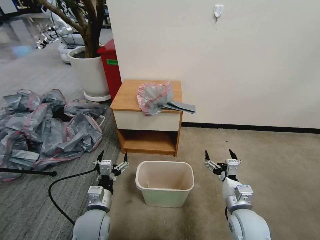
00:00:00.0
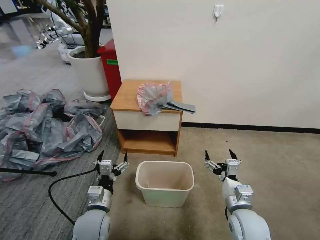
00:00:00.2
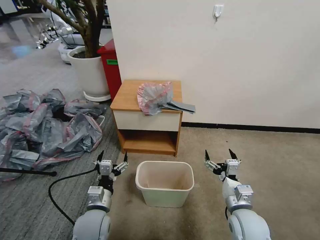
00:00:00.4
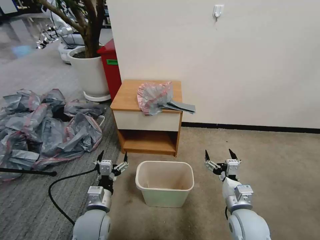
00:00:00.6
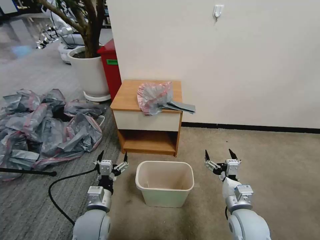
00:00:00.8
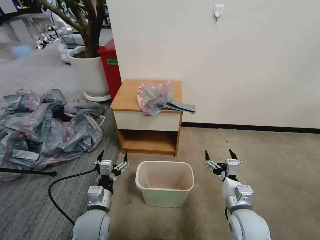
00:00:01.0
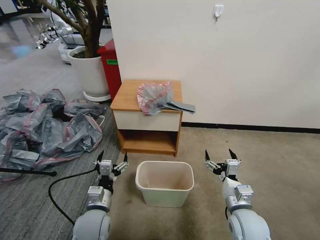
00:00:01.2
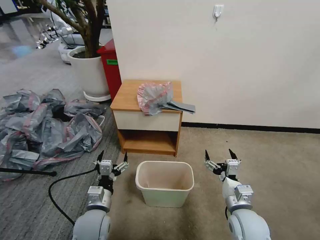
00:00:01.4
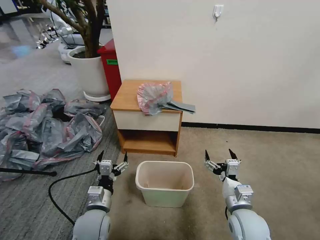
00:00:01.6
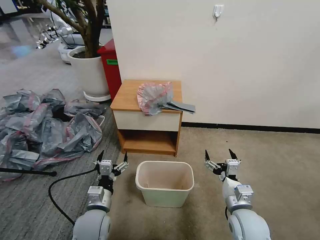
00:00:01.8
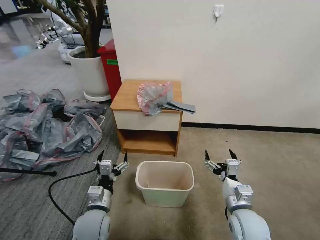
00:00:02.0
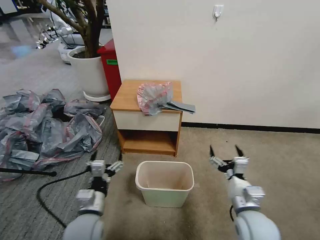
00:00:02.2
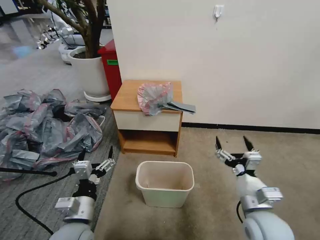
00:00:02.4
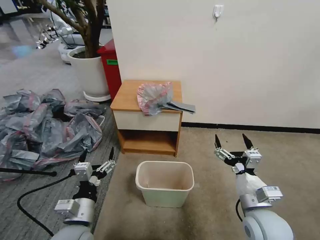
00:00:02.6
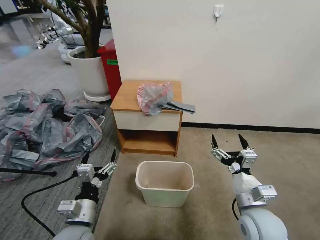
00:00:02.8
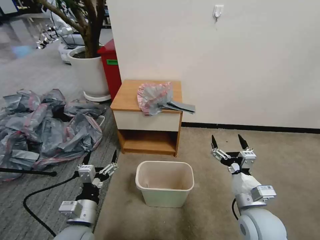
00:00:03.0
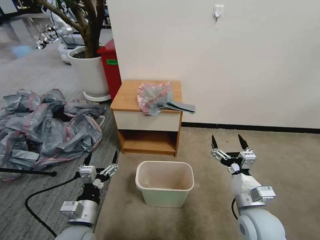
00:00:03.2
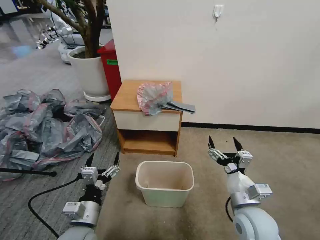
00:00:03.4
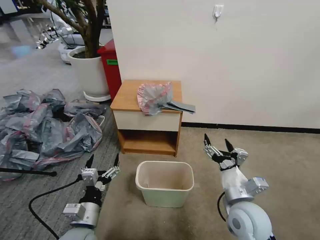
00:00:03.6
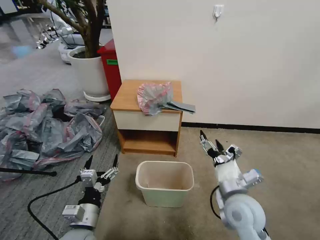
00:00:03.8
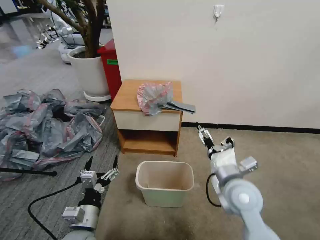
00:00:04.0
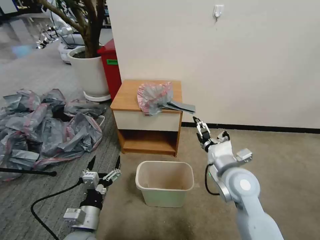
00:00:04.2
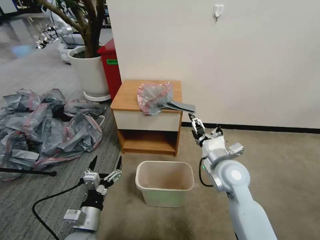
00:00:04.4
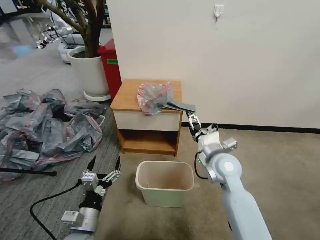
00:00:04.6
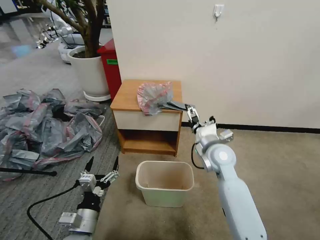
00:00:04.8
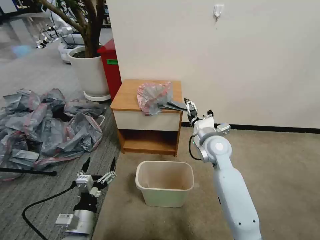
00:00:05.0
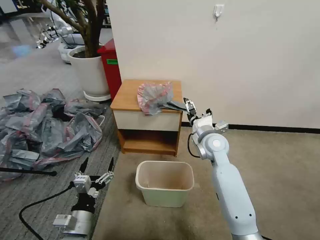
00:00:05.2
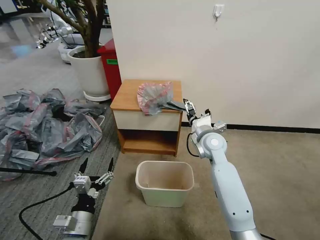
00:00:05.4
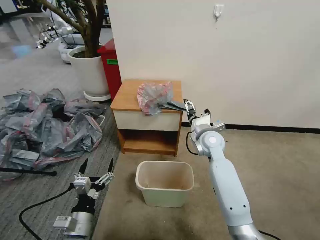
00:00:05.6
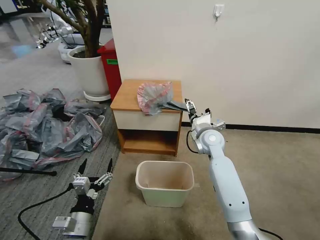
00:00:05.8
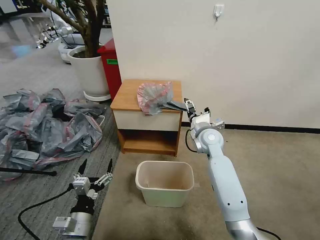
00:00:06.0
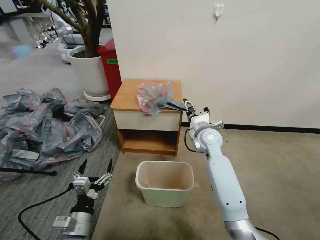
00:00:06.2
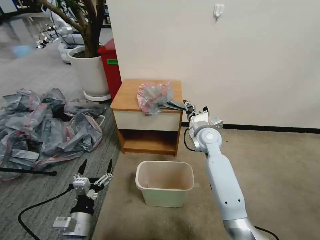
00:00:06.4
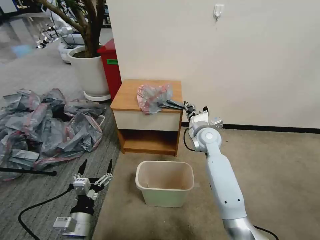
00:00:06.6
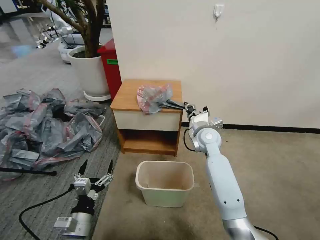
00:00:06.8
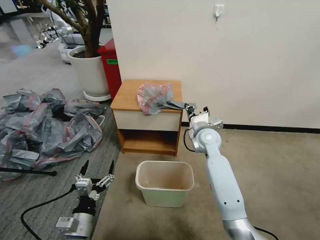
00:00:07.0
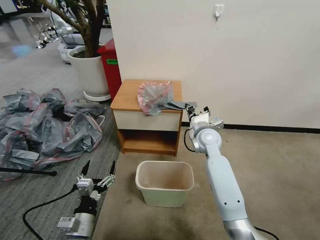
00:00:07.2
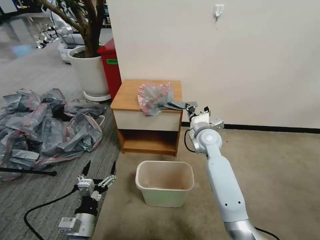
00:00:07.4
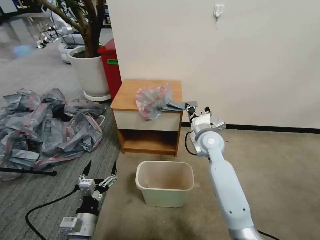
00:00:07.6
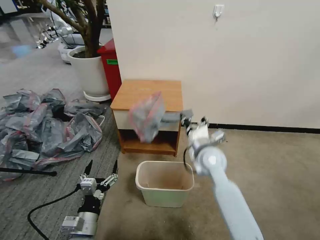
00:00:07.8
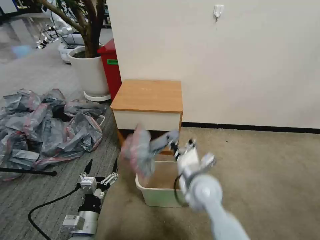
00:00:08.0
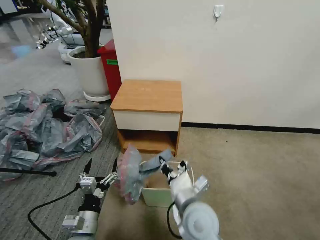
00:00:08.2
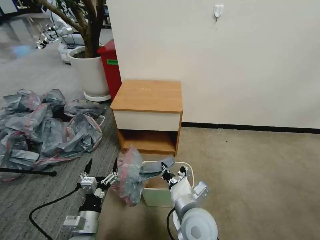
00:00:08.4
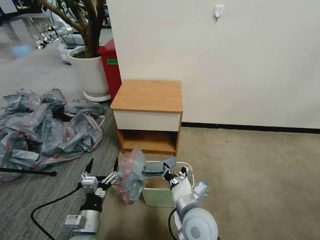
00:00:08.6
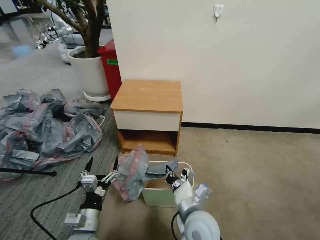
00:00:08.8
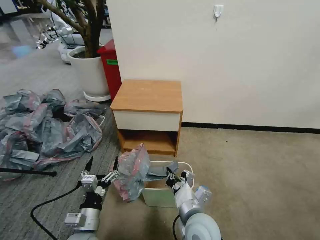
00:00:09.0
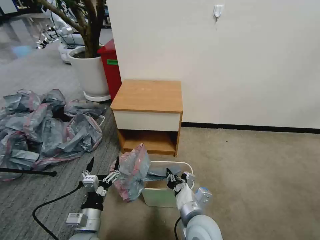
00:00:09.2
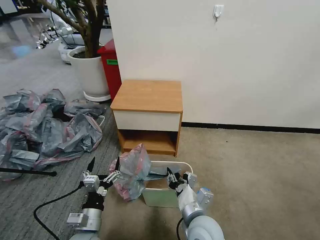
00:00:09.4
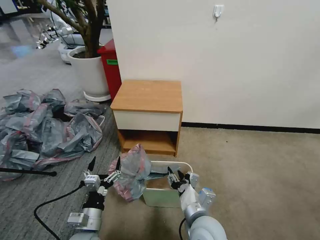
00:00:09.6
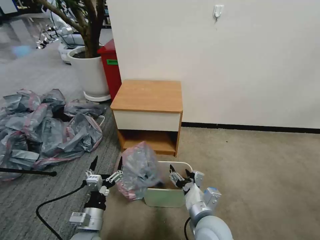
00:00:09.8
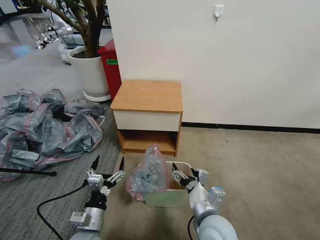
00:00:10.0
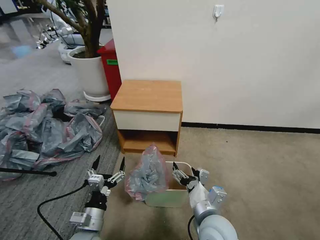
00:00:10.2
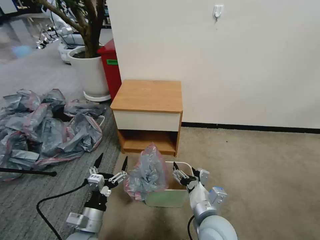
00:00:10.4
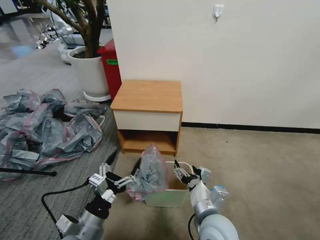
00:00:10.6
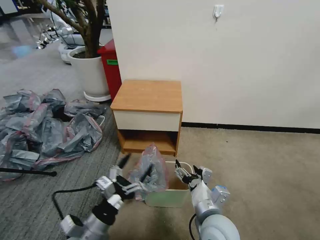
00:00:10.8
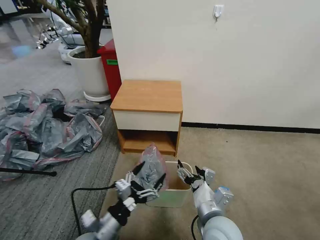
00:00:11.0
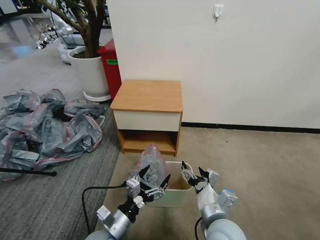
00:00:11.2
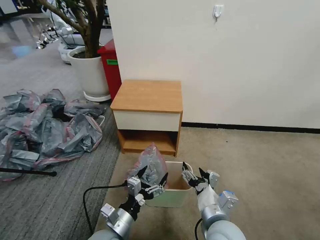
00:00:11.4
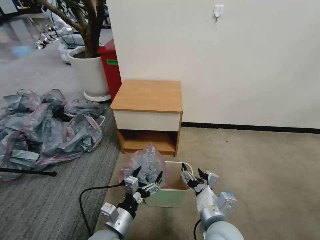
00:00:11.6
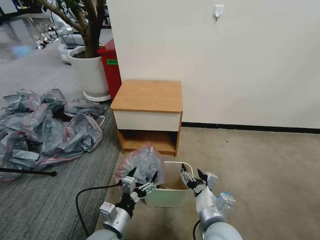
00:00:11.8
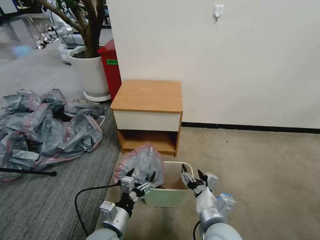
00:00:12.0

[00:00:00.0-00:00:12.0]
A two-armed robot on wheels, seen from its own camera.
Task of the whole recording: Pick up the garbage bag from the table and place it over the trash can.
00:00:01.6 to 00:00:03.0: The left gripper shifts by some 5 cm; the right gripper travels upward by some 5 cm.
00:00:03.0 to 00:00:04.4: The right gripper shifts approximately 15 cm forward and to the left.
00:00:04.4 to 00:00:06.0: The right gripper shifts about 15 cm forward.
00:00:06.0 to 00:00:07.6: The right gripper closes.
00:00:07.6 to 00:00:09.0: The right gripper is displaced backward by some 25 cm.
00:00:09.0 to 00:00:10.4: The right gripper opens.
00:00:10.4 to 00:00:12.0: The left gripper travels to the right by some 5 cm.

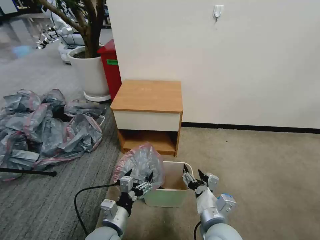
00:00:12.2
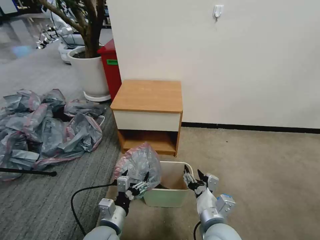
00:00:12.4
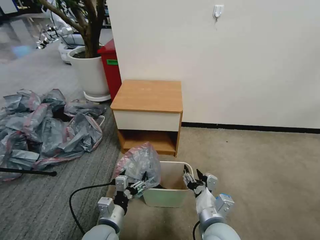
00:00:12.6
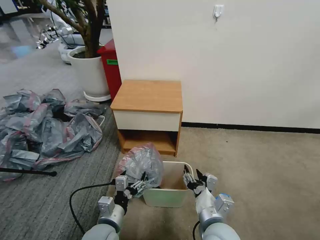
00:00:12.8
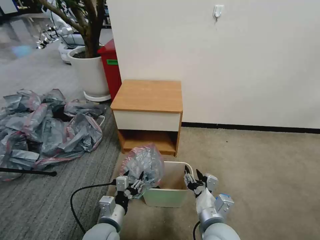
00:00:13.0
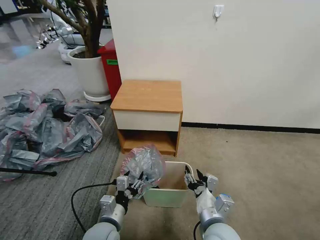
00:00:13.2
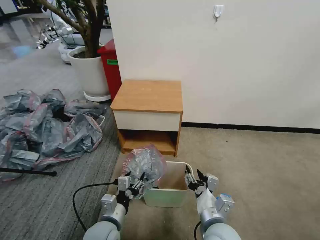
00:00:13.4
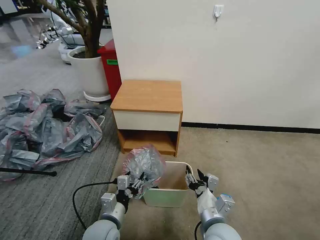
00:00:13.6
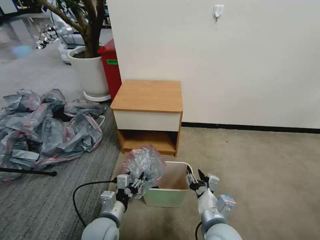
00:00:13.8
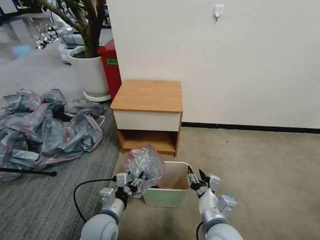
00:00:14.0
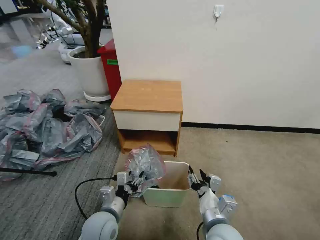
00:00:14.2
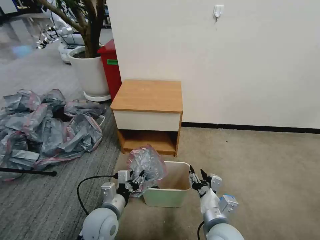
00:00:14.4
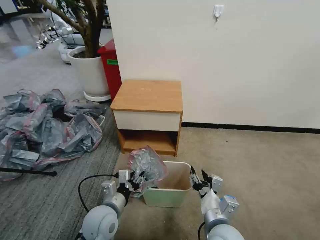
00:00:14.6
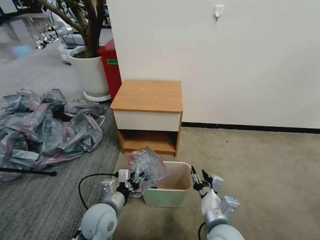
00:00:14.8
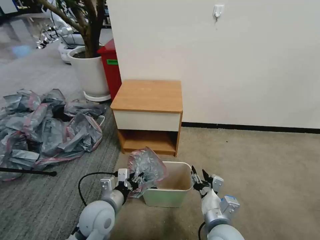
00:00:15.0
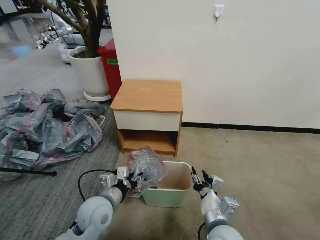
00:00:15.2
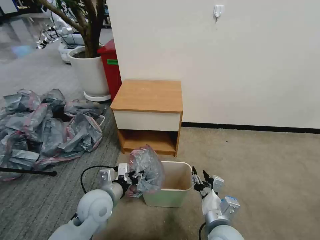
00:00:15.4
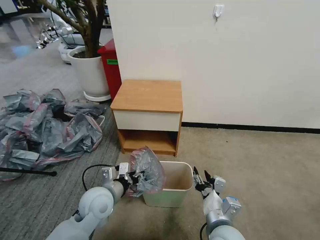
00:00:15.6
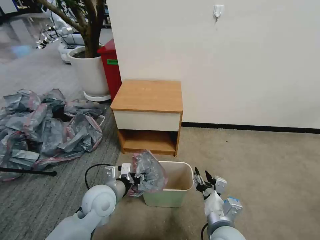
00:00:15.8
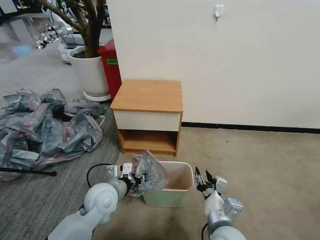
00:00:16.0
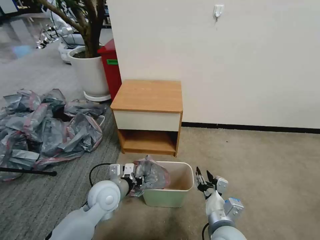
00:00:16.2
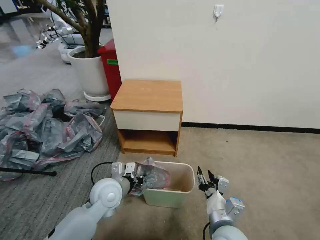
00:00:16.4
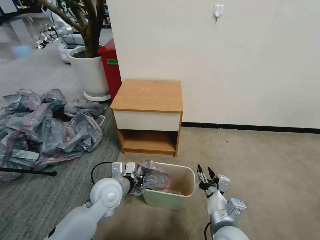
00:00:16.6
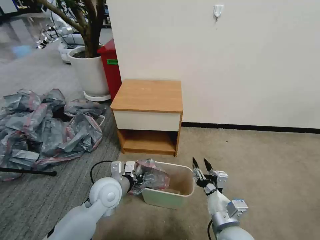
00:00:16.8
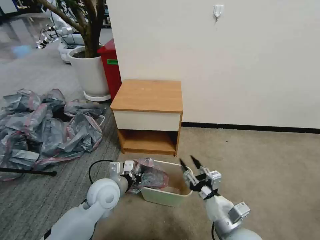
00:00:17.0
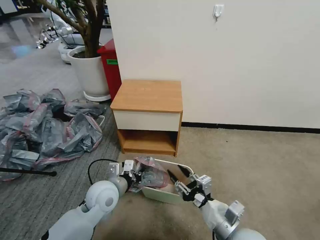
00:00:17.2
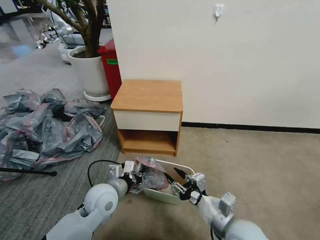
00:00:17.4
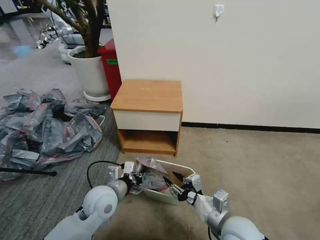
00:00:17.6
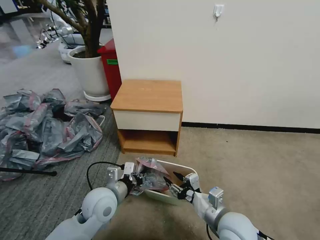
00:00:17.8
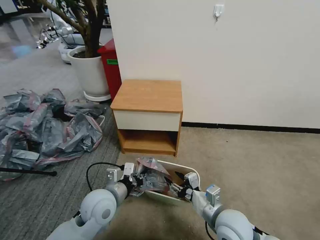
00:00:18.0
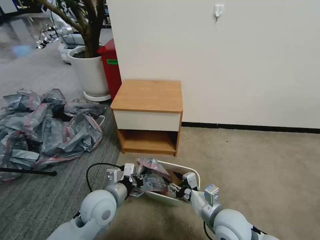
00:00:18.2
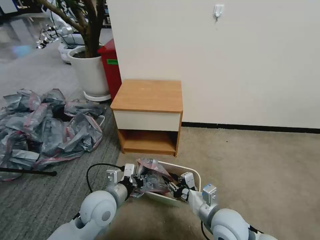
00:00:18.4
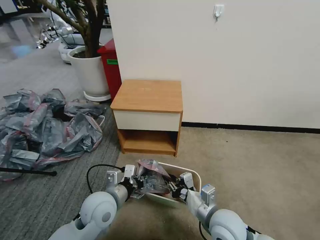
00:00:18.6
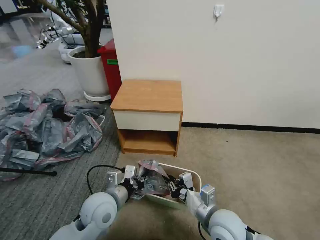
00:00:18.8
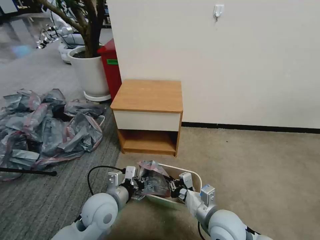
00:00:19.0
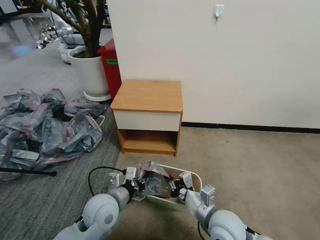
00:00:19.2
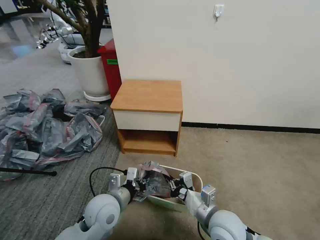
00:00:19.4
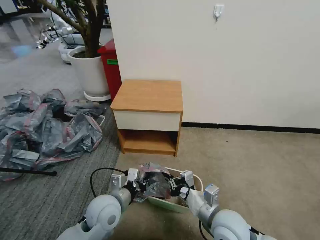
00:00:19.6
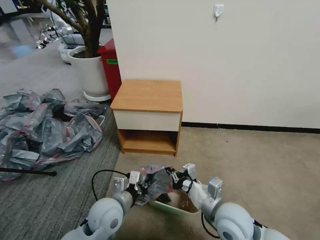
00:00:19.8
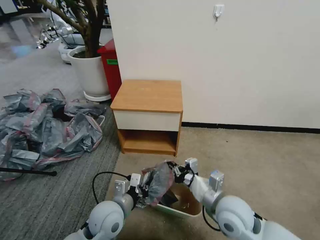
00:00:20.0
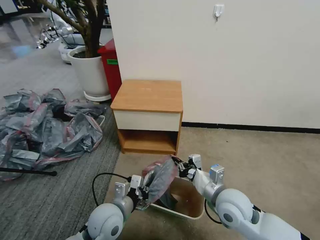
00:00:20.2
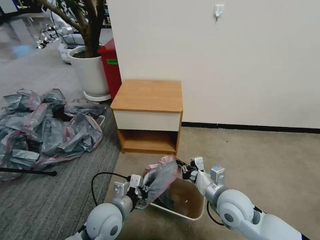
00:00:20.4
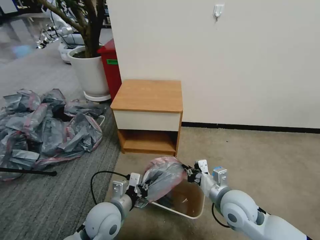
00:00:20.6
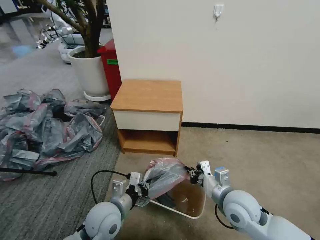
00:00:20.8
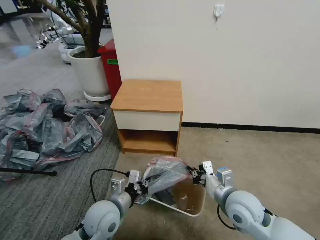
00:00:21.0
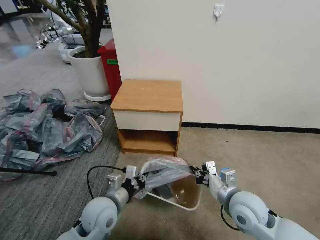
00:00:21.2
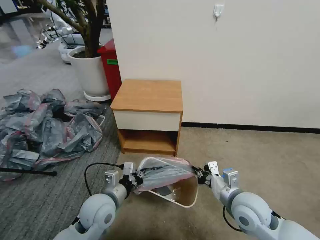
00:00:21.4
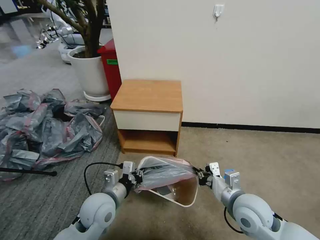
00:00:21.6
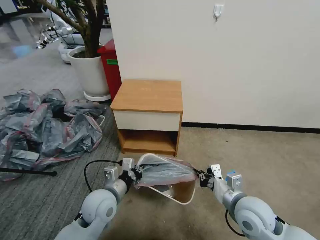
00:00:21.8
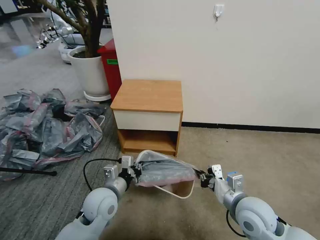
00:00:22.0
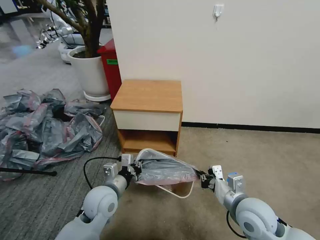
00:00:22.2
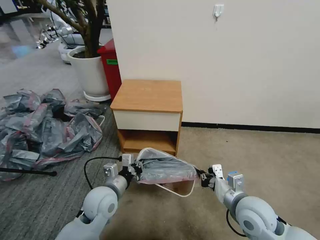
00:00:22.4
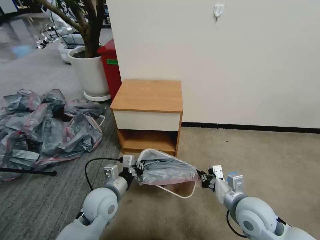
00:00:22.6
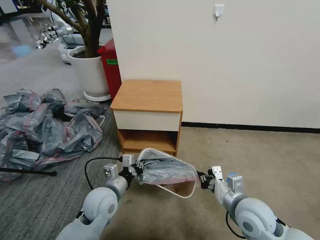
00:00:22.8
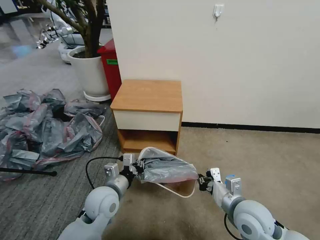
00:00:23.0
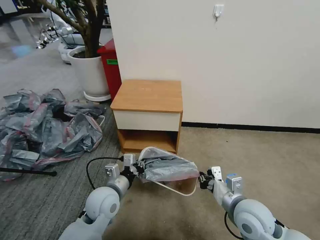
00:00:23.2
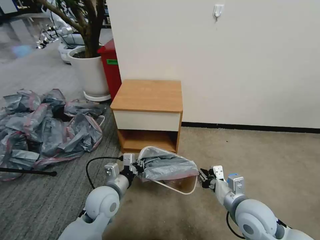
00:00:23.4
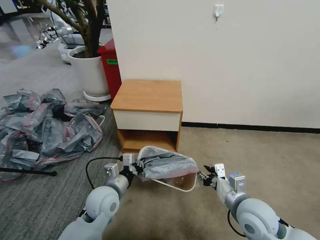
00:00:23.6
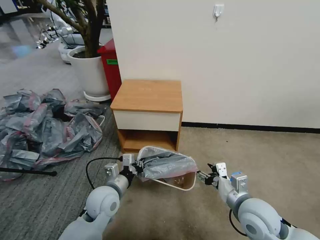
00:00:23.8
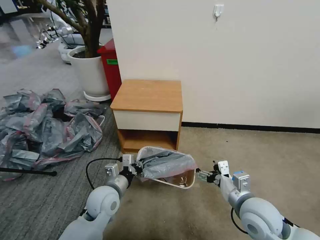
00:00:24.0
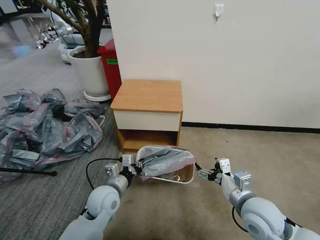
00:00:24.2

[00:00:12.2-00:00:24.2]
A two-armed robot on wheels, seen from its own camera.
Task of the whole recording: Pick up the garbage bag from the table and place it over the trash can.
00:00:12.2 to 00:00:13.8: There are only small adjustments of the grippers.
00:00:13.8 to 00:00:15.2: The left gripper ends up roughly 5 cm from where it was.
00:00:15.2 to 00:00:16.6: The left gripper heads forward, covering some 5 cm, and closes its fingers.
00:00:18.2 to 00:00:19.8: The right gripper closes up.
00:00:19.8 to 00:00:21.2: The right gripper shifts some 5 cm to the right.
00:00:21.2 to 00:00:22.6: The grippers stay close to where they were, moving slightly.
00:00:22.6 to 00:00:24.2: The right gripper opens its fingers.
